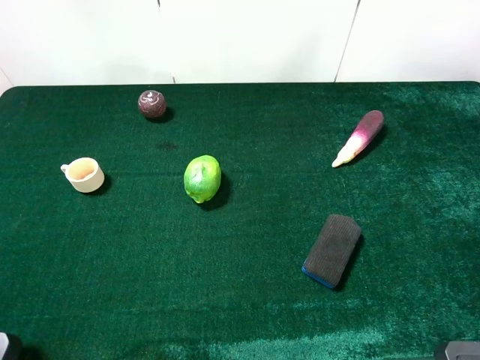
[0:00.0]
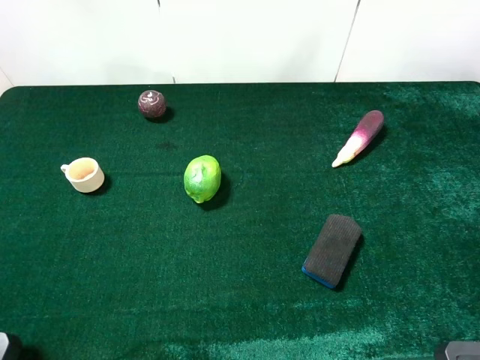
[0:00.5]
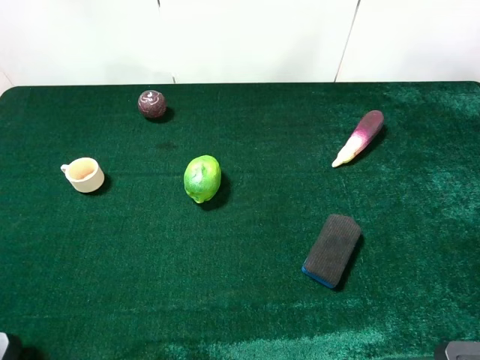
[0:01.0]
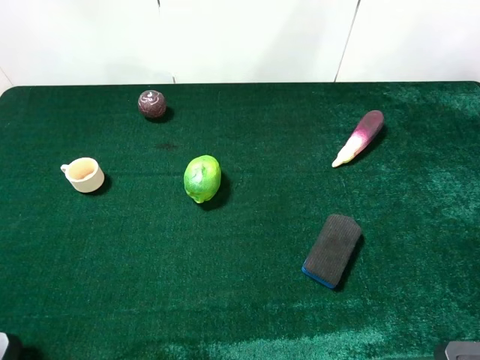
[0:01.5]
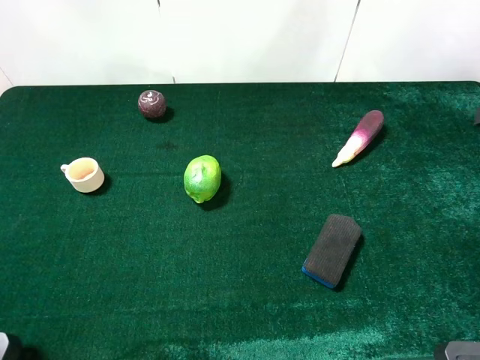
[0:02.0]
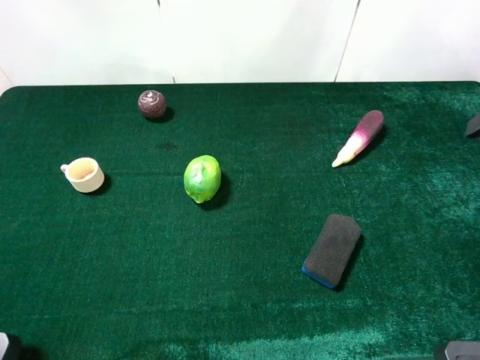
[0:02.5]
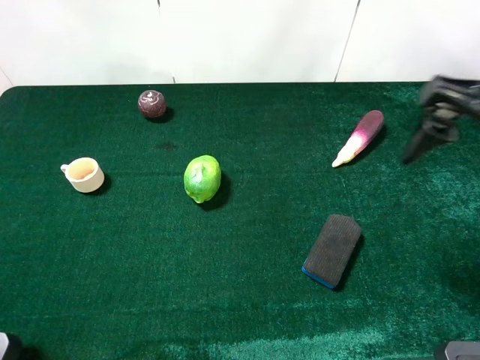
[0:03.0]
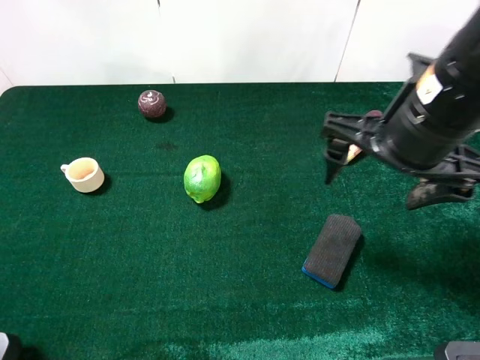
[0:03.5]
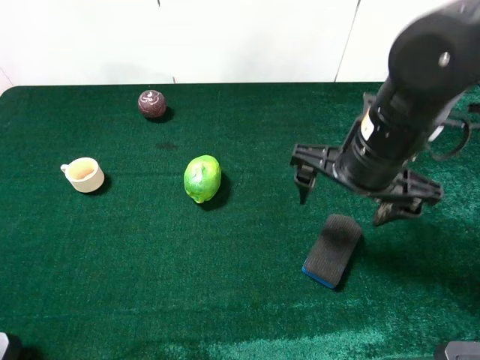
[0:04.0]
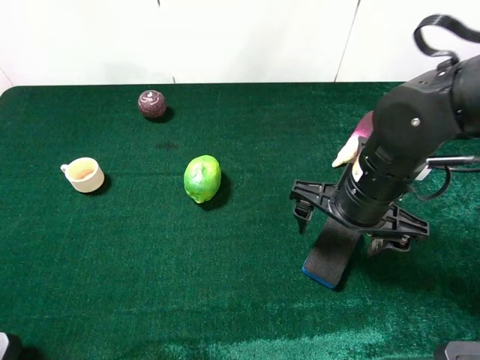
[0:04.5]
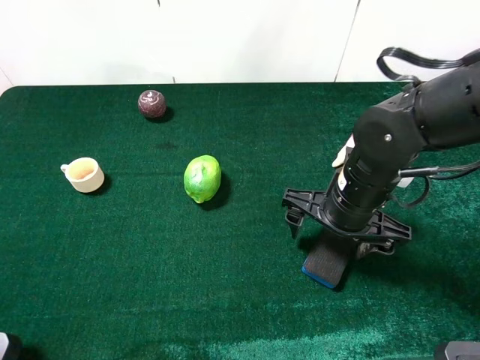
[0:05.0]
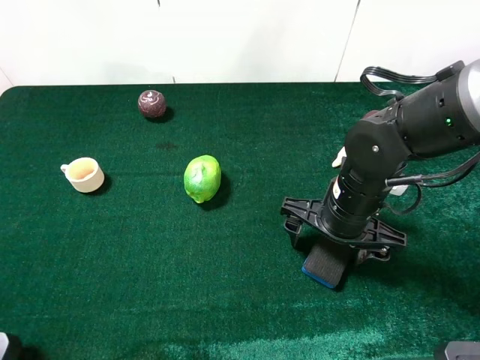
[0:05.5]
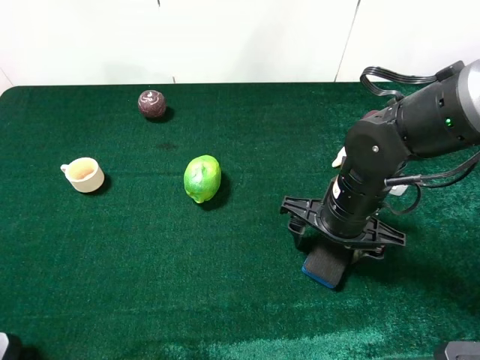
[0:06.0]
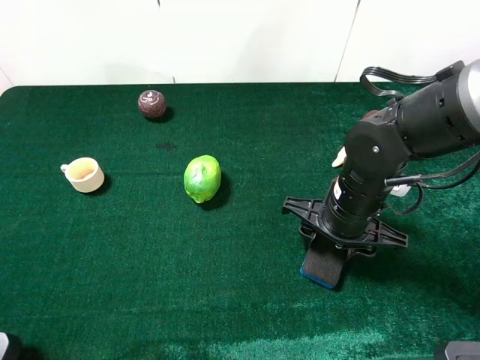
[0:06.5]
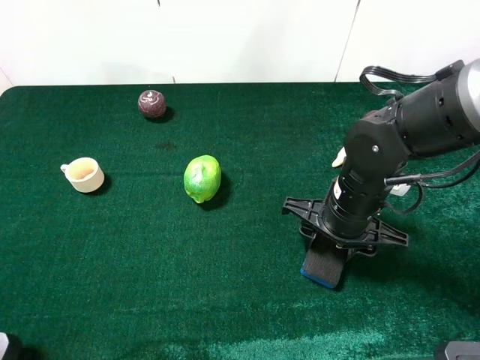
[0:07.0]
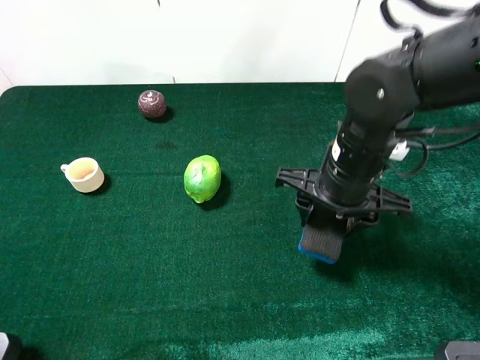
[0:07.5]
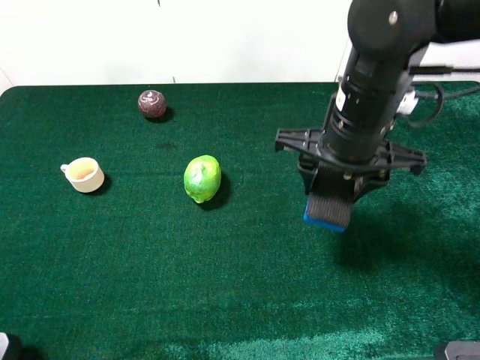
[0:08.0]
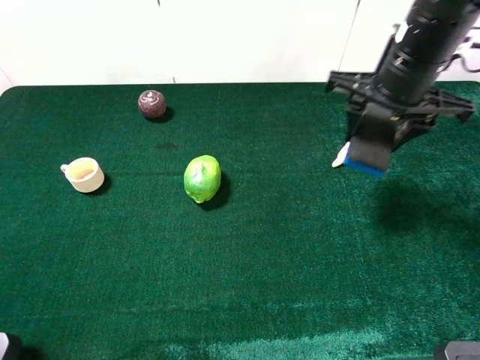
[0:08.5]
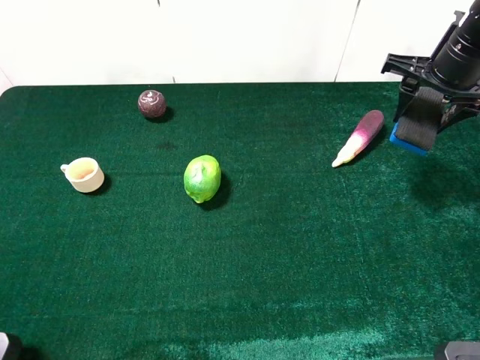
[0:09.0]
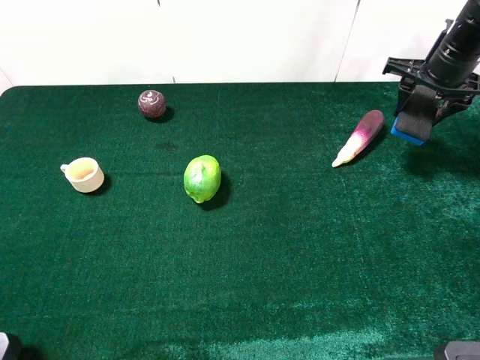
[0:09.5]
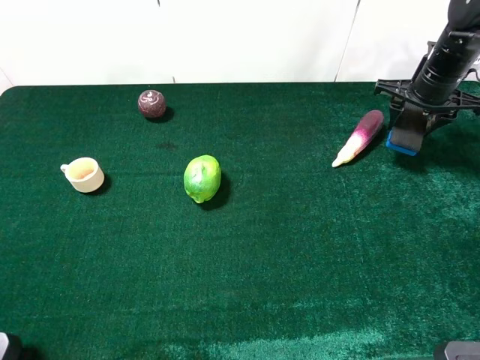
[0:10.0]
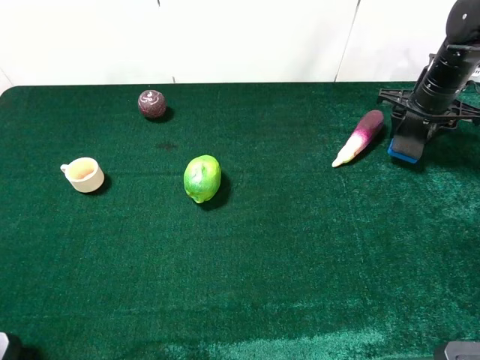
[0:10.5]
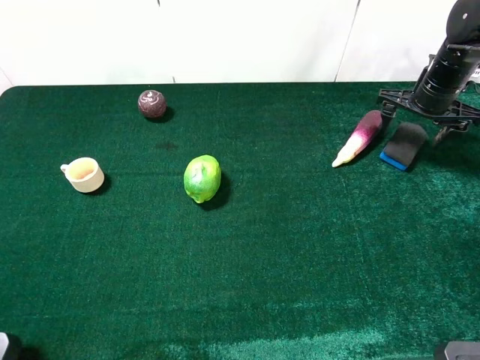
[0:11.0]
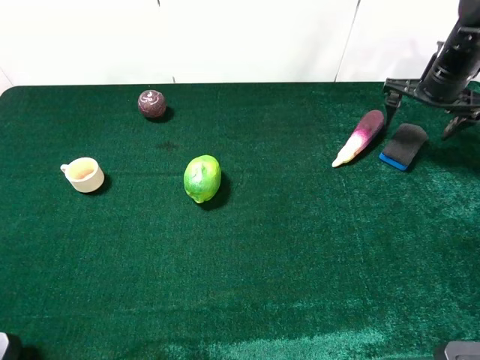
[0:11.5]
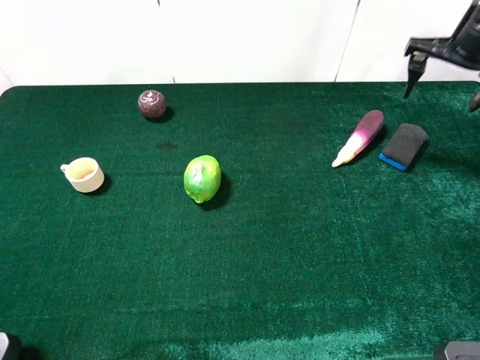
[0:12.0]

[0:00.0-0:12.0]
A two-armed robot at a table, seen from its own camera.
Task of the whole recording: the gripper move the object.
Step, 0:00.0 to 0:06.0: Grasp the blue blackboard earser with the right gripper.
Step, 0:06.5 to 0:11.5: Place the blue blackboard earser on the table with the right gripper.
0:02.0 to 0:04.0: The right gripper moves to the left and downward, roughly 20 cm.
0:04.0 to 0:06.0: The right gripper is displaced downward by approximately 10 cm, and closes.
0:06.0 to 0:08.0: The right gripper moves upward, approximately 10 cm, and closes up.
0:08.0 to 0:10.0: The right gripper goes roughly 25 cm to the right and forward.
0:10.0 to 0:12.0: The right gripper moves upward, roughly 10 cm, and opens its fingers.

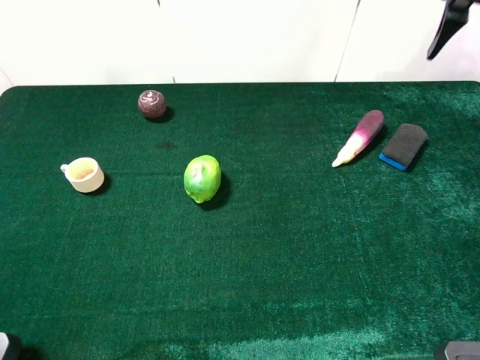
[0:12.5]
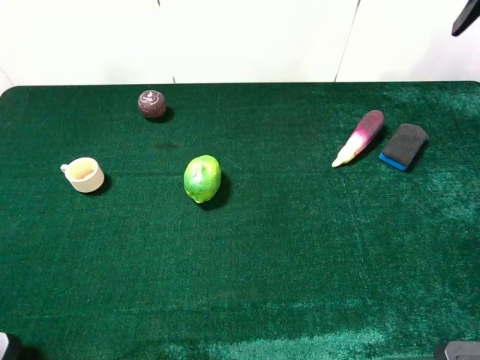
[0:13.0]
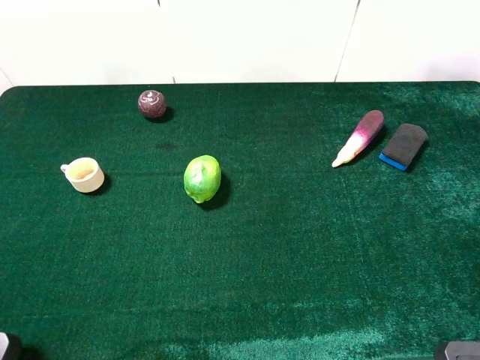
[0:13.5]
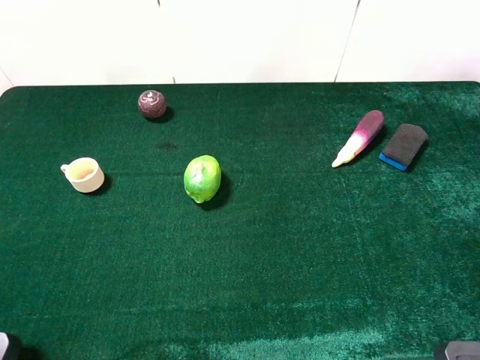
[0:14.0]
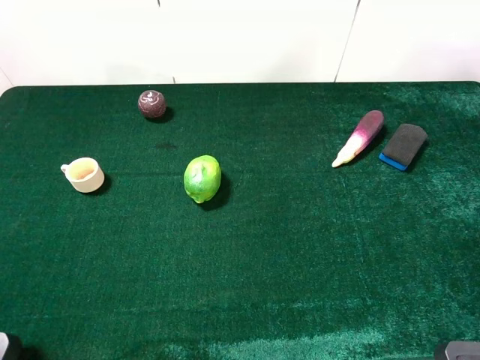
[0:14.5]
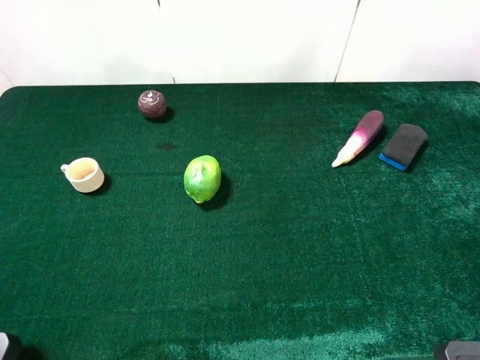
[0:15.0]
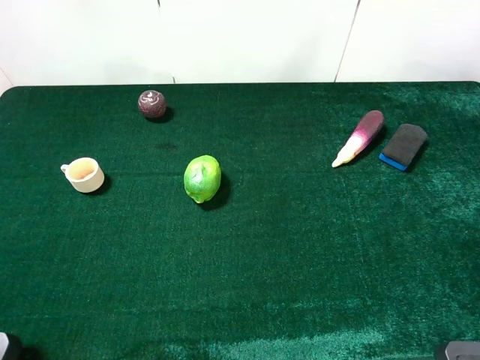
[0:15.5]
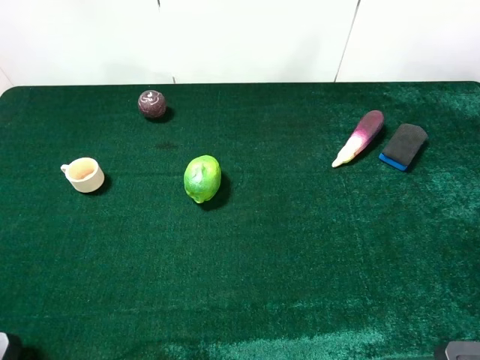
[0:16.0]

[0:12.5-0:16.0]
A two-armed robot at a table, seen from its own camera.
Task of the whole recording: the gripper move the object.
0:12.5 to 0:14.5: The right gripper moves backward, about 30 cm.
